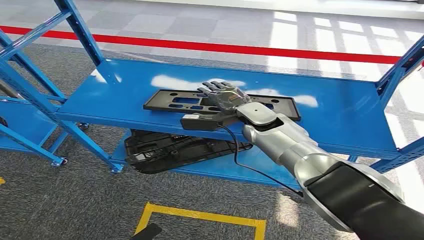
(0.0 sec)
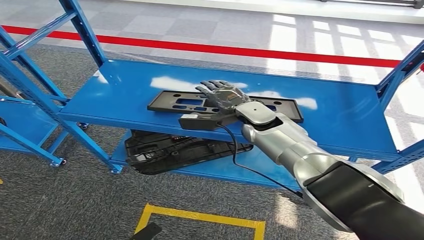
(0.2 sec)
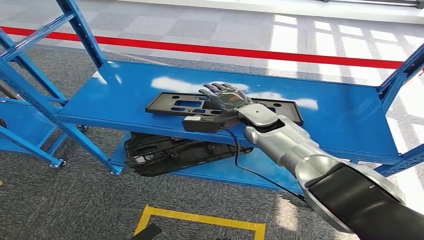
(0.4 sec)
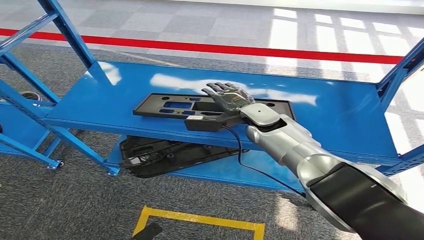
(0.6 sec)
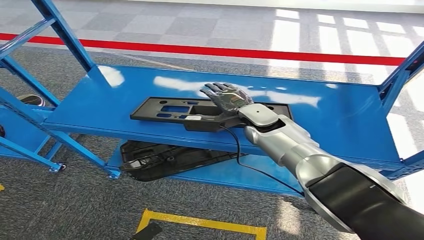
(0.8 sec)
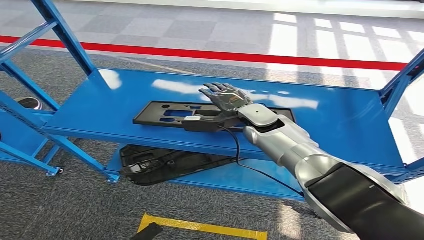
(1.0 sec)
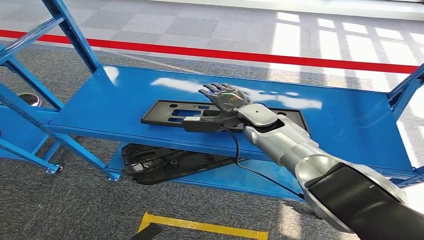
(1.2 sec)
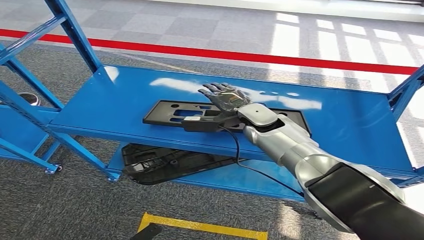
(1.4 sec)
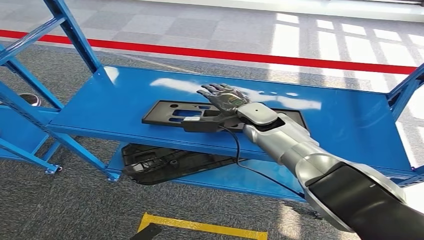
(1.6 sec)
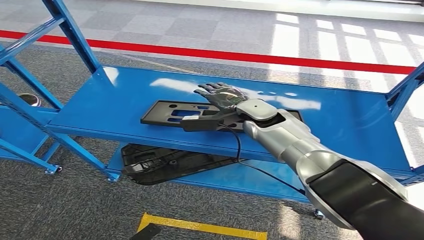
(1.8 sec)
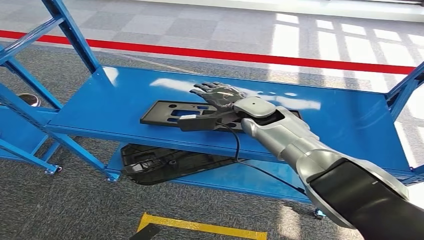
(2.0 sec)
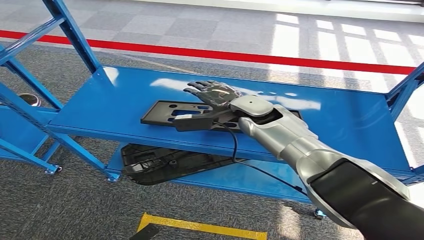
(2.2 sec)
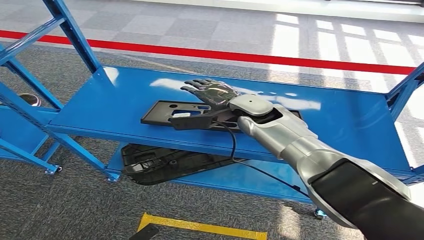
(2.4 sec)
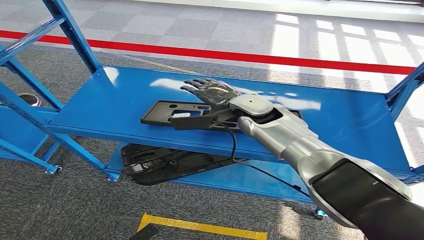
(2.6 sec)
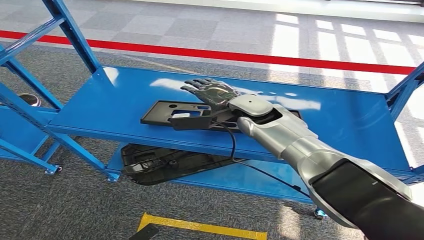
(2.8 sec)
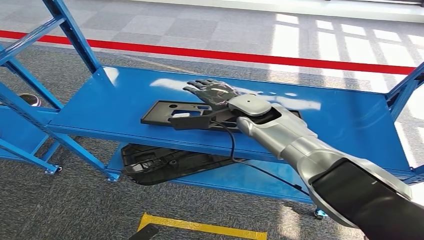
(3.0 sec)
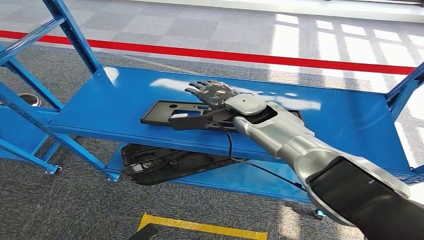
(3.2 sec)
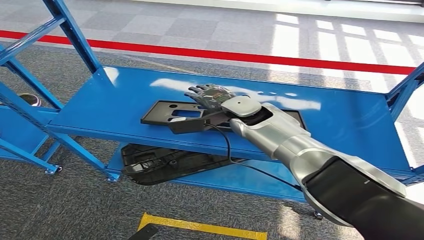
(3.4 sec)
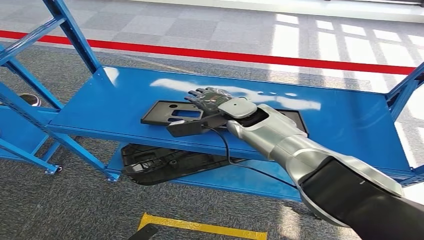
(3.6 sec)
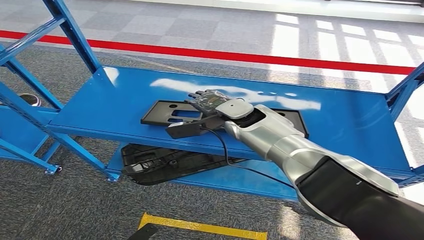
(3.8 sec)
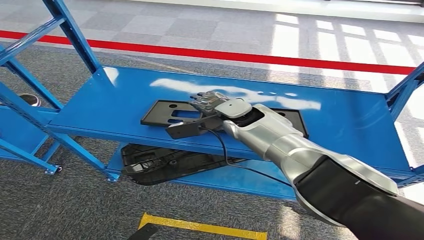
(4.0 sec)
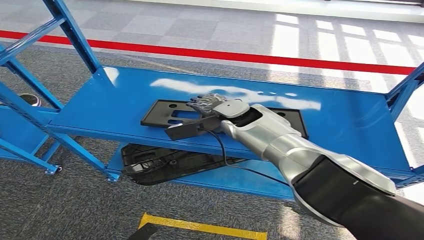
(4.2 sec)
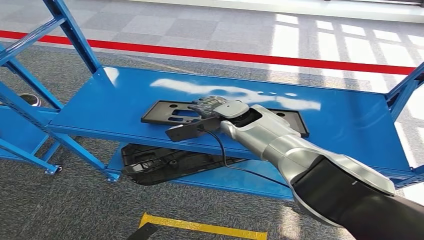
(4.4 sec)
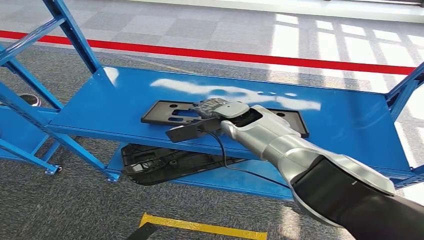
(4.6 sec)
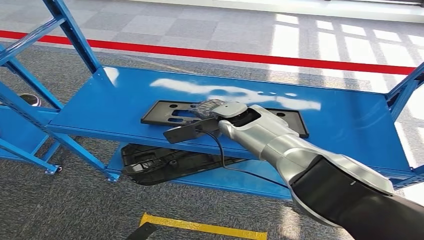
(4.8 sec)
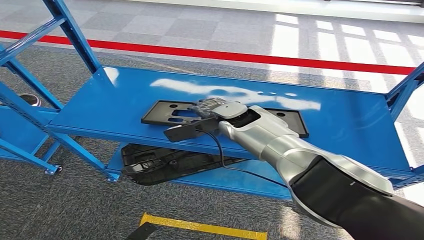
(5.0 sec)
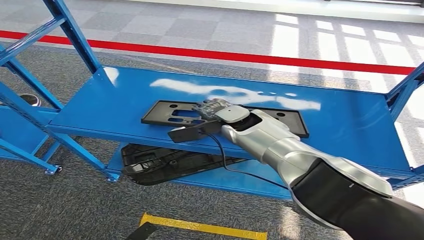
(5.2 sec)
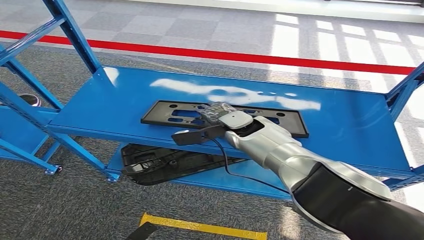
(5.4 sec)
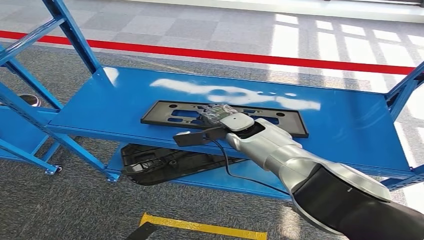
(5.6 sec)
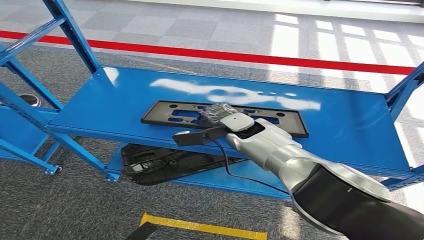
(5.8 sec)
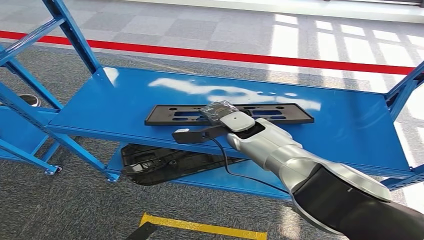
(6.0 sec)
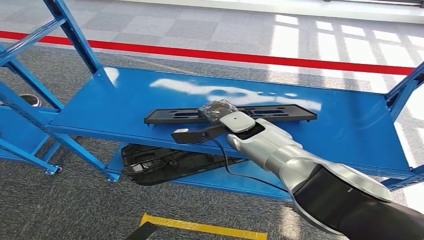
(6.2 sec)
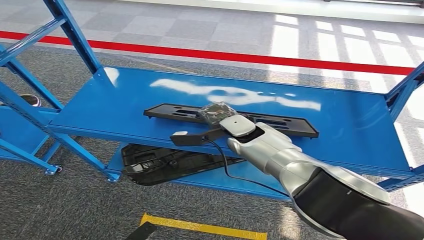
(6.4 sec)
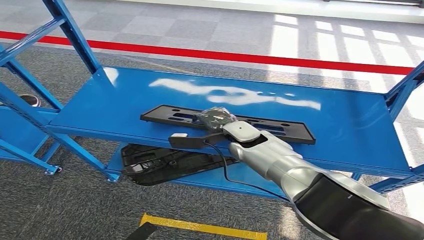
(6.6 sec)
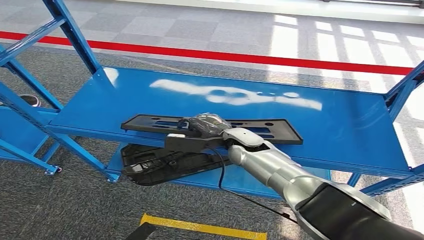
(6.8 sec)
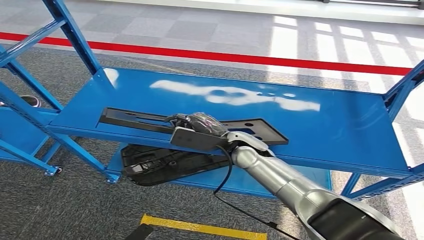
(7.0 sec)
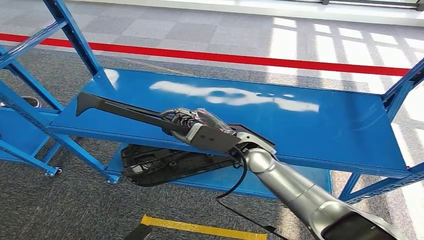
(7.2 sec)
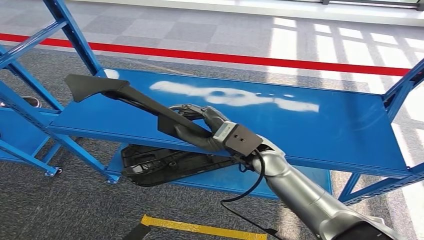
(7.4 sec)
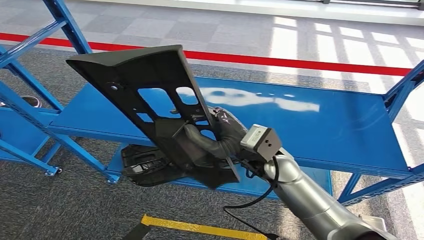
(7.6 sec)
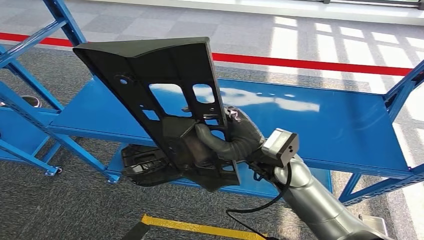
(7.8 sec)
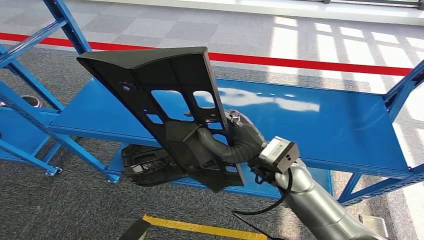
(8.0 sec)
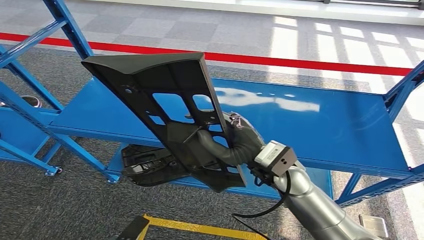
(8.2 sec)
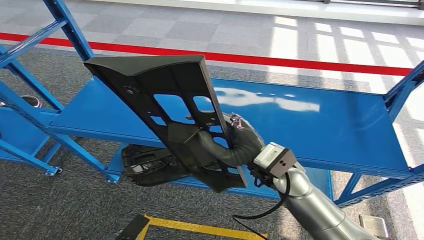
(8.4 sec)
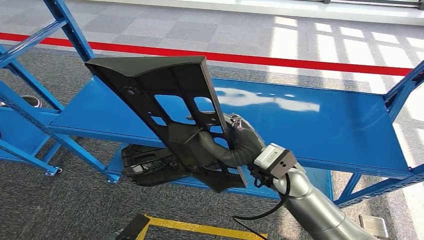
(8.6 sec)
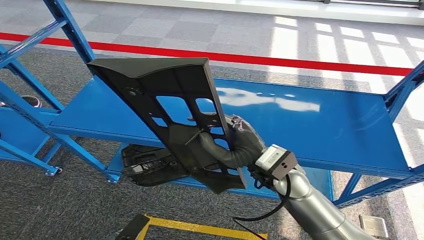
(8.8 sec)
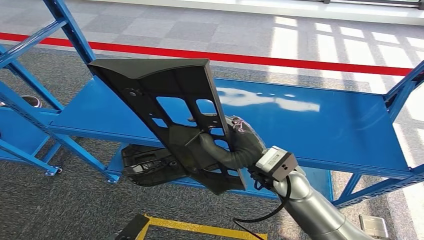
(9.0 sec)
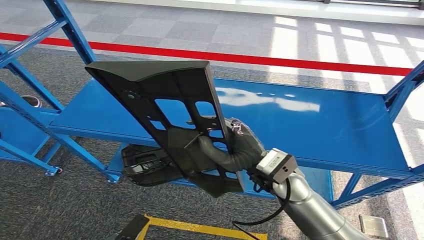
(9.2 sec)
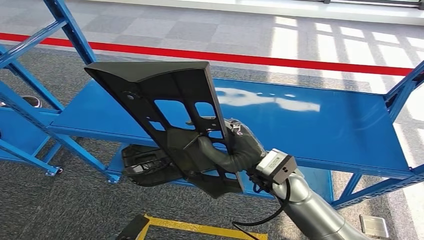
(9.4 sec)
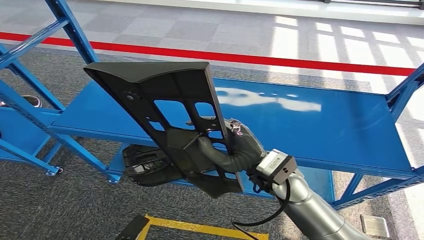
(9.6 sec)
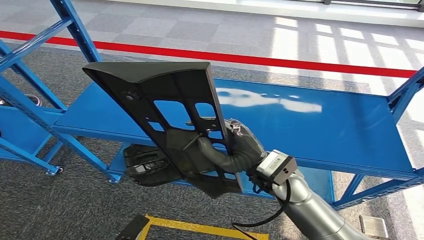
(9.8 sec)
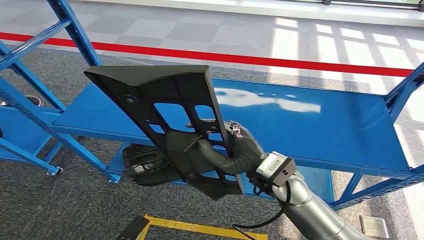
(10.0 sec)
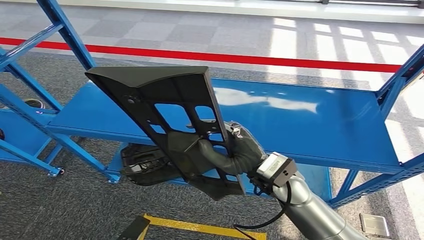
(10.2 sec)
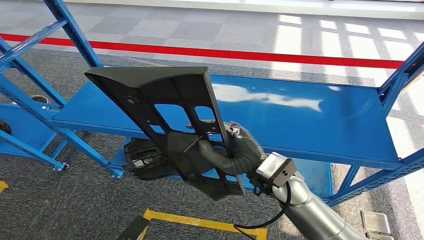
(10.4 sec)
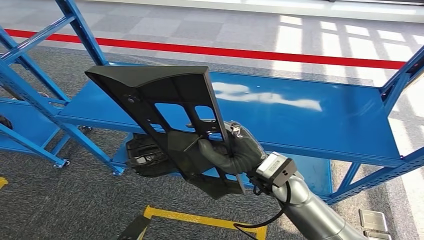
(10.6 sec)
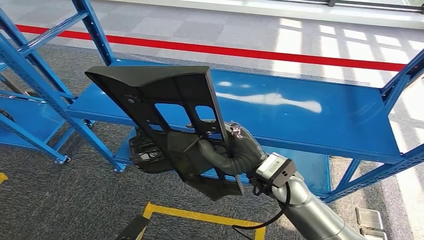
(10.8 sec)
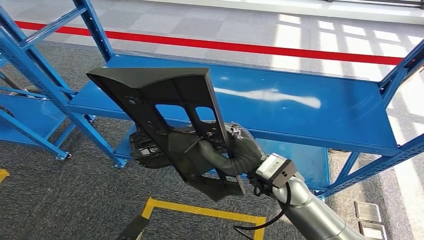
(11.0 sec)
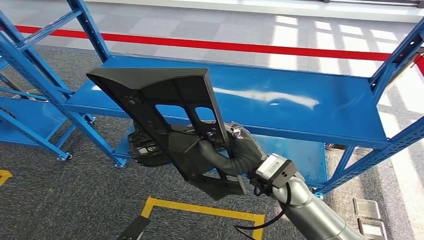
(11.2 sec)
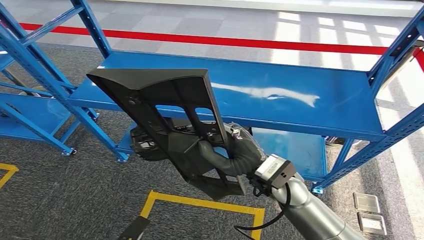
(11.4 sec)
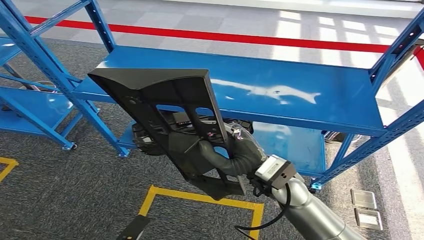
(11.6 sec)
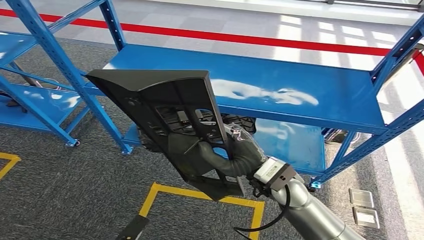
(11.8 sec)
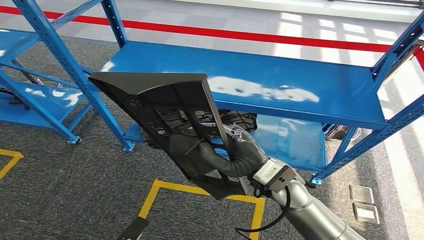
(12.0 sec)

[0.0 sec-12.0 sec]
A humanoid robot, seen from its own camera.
Step, 0.0 sec to 8.6 sec: Pick up the large material from the shelf.
1.6 sec to 3.0 sec: The hands make only small movements.
4.4 sec to 6.0 sec: The hands move only a little.
7.6 sec to 9.0 sec: There are only small adjustments of the hands.

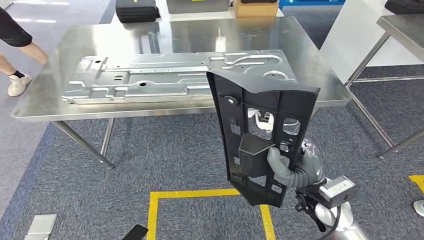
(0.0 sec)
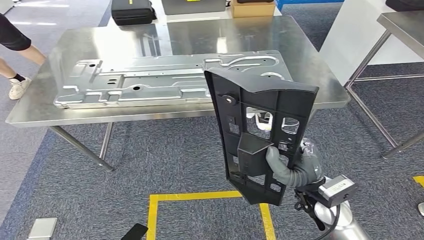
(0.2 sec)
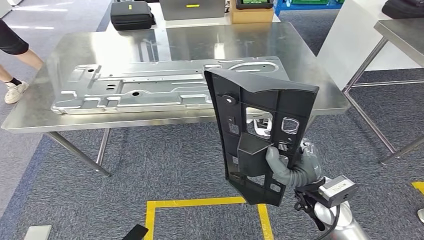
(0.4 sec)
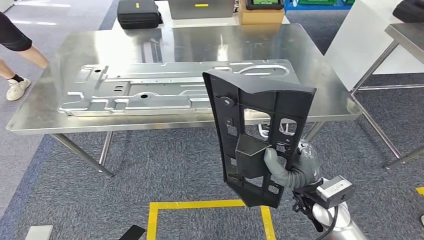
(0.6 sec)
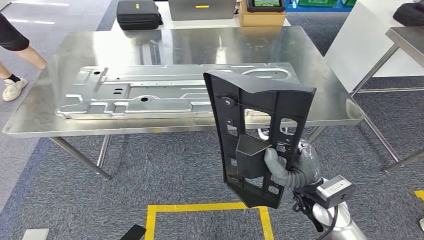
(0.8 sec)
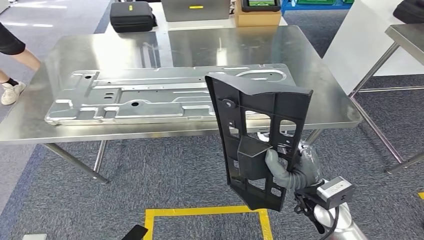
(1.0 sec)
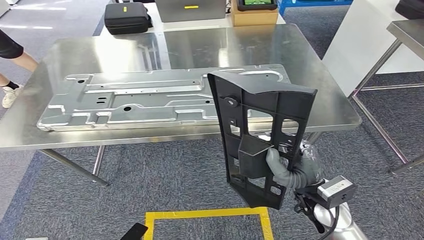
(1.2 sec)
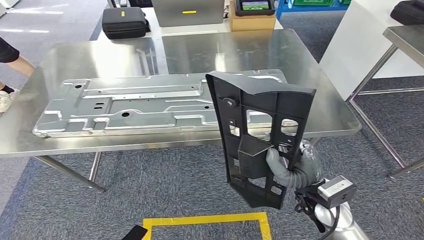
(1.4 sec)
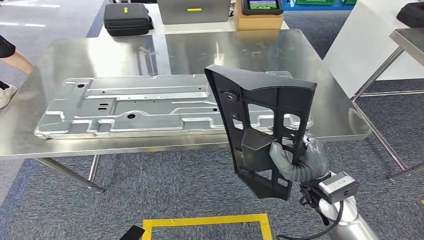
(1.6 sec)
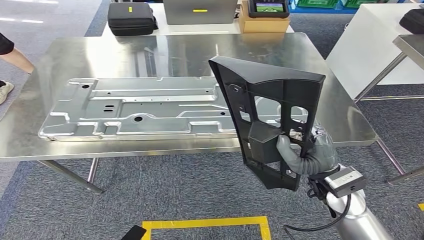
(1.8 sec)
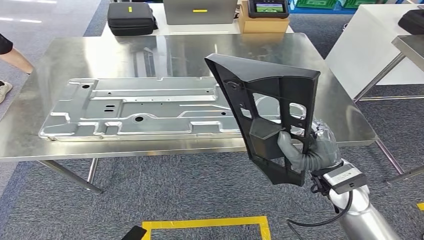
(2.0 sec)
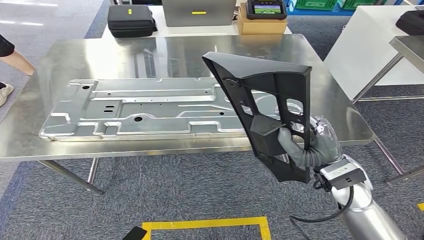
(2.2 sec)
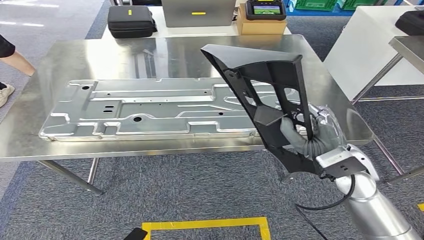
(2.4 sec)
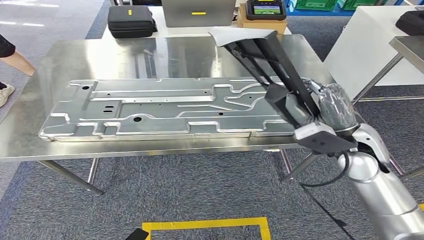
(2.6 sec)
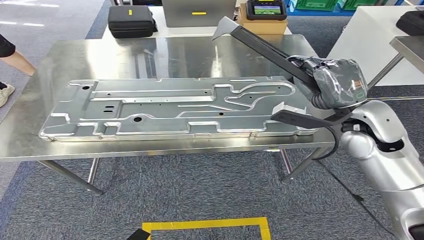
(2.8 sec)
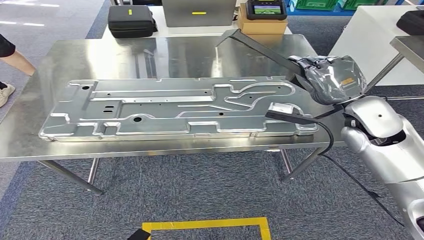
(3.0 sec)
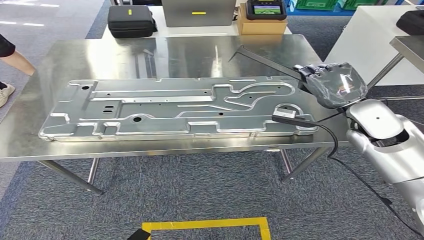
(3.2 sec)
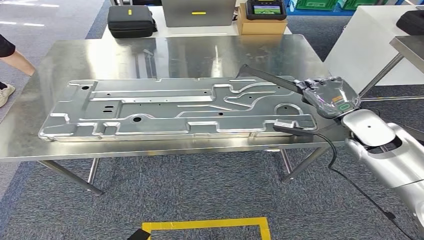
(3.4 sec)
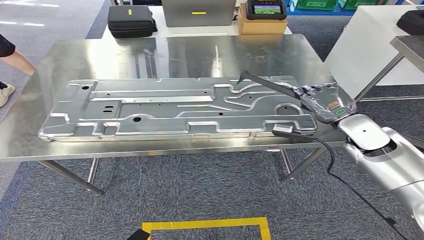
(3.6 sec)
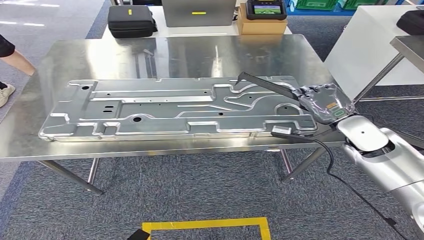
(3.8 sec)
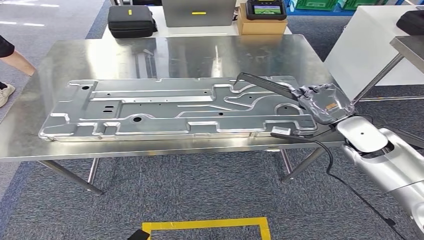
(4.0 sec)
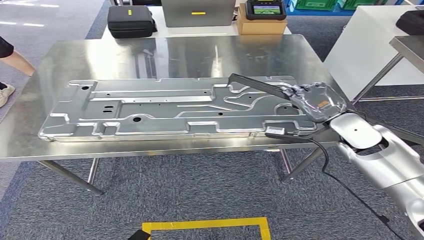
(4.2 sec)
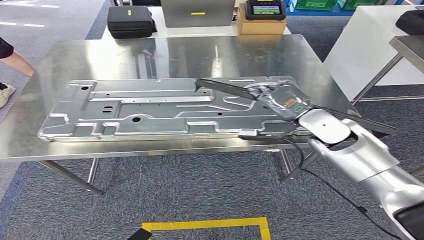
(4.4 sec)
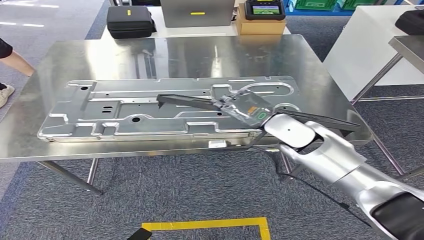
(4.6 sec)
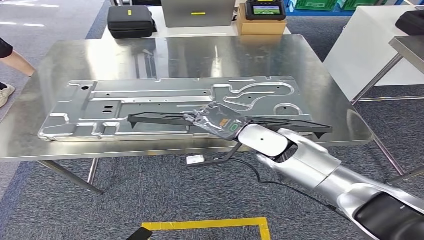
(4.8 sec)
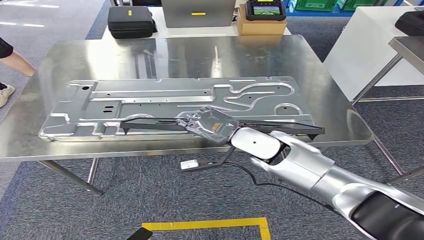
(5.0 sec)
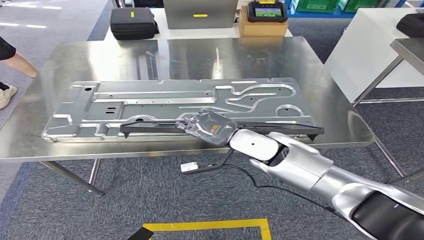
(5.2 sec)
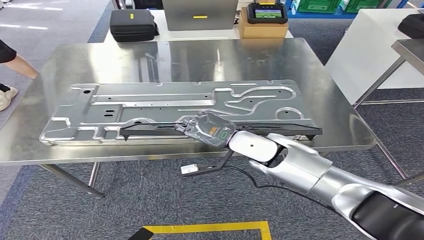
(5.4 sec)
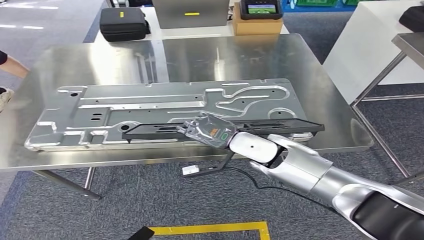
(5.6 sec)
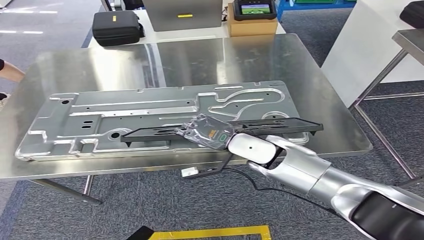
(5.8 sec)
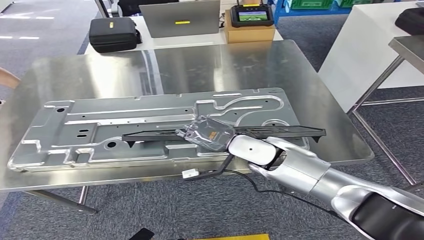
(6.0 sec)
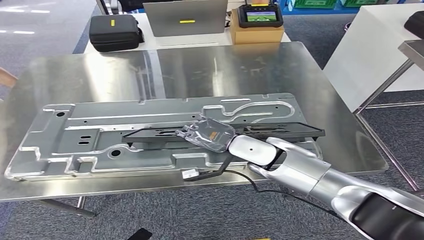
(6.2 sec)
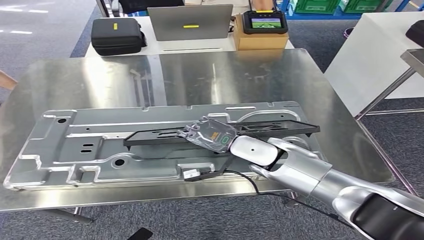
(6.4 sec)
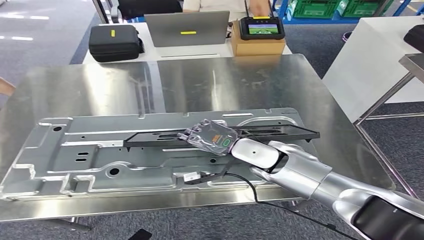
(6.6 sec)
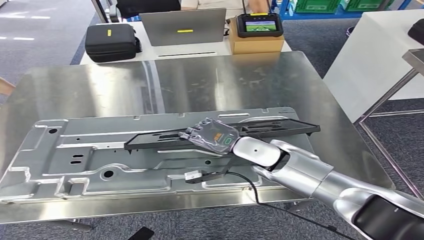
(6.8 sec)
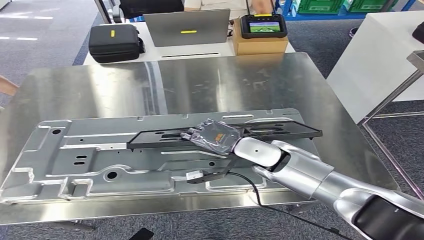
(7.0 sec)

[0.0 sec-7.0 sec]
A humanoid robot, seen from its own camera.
2.8 sec to 4.2 sec: The right hand shifts approximately 5 cm downward.
